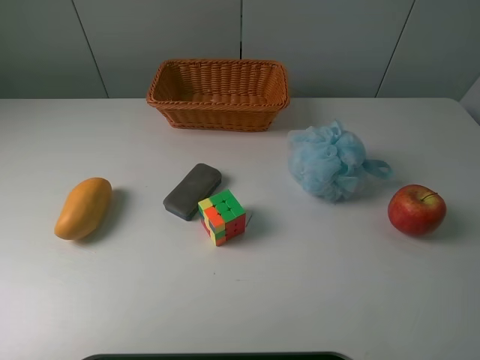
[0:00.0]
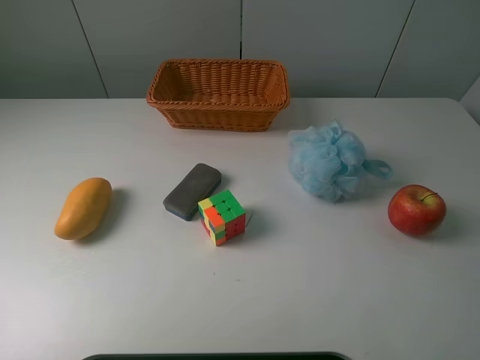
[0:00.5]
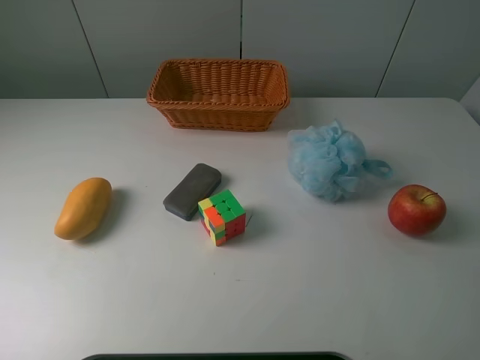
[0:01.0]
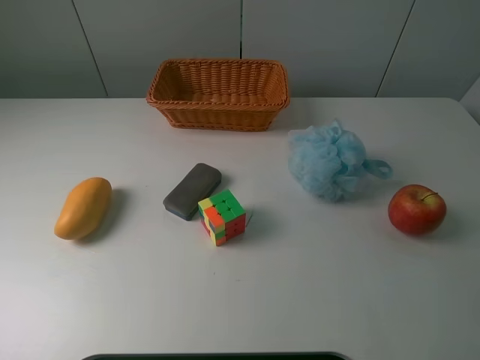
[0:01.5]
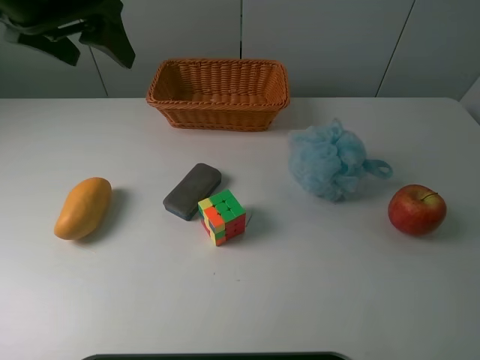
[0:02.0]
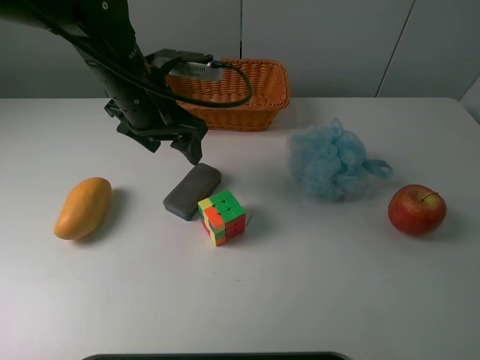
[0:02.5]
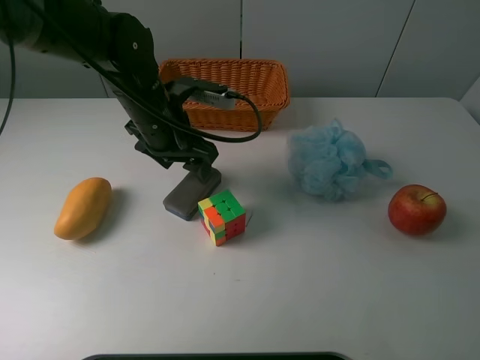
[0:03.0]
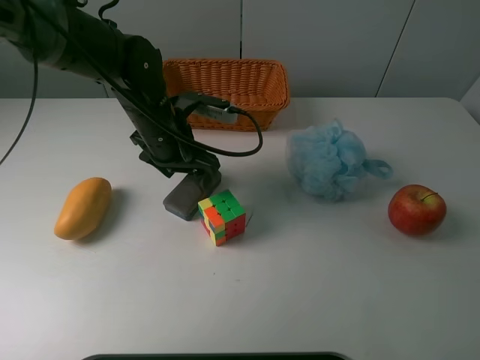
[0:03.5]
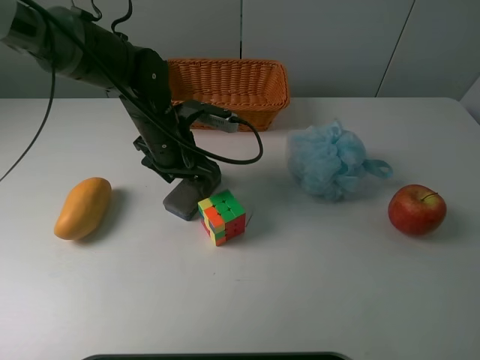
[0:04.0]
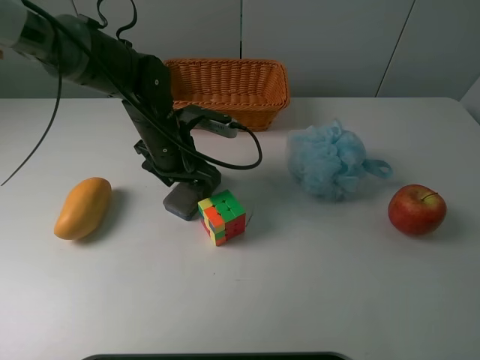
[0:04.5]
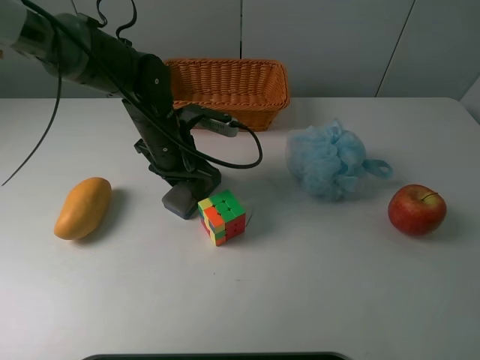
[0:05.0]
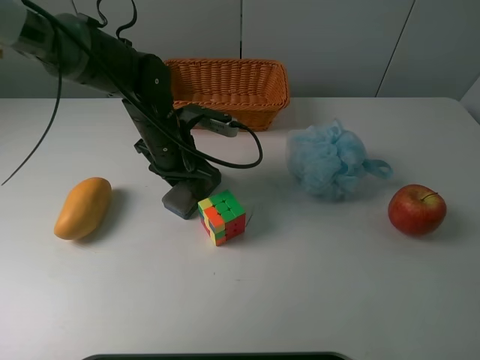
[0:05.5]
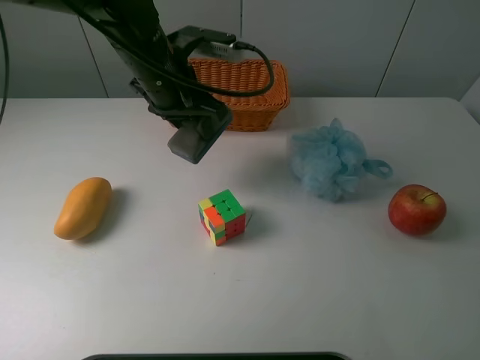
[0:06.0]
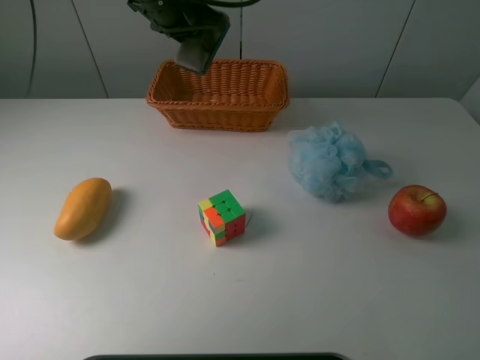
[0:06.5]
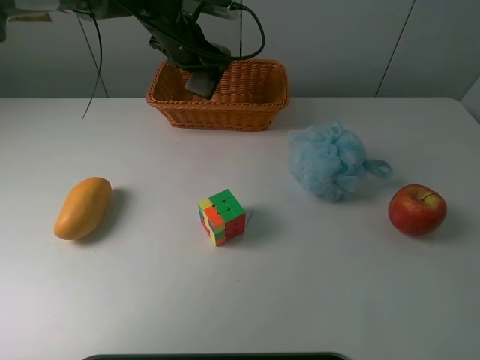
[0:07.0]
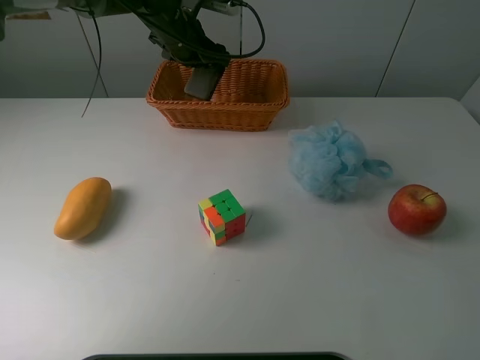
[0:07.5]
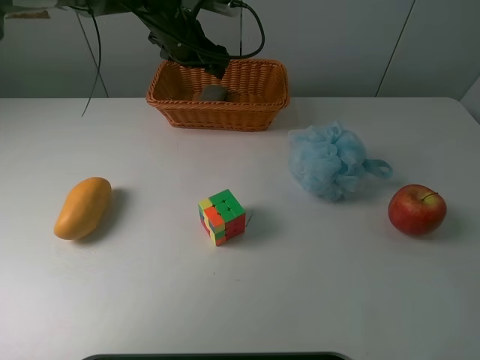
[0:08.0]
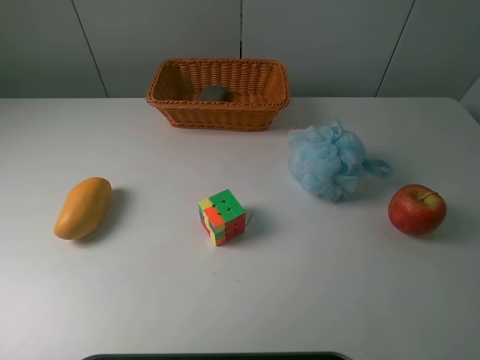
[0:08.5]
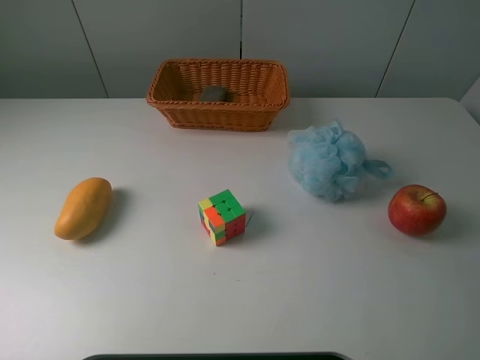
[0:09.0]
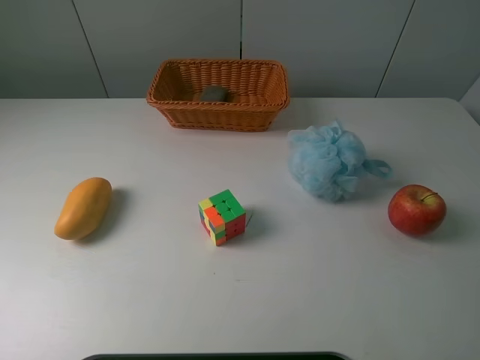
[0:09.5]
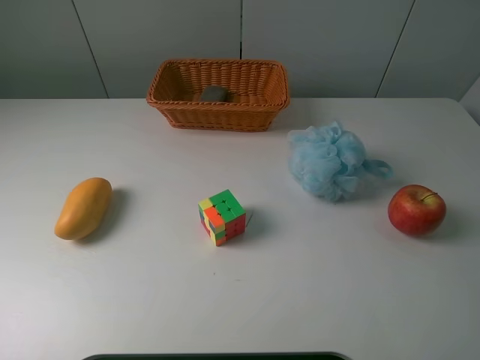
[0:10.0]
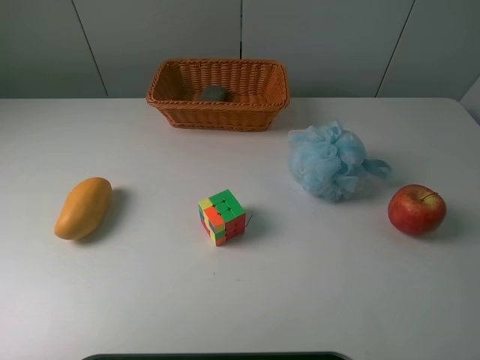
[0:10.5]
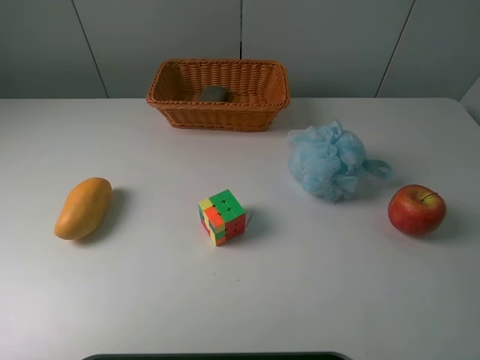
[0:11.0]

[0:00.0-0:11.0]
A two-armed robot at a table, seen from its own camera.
Task of the whole recording: use a picker to grab the item closest to the cube and place it in the basket.
Step, 0:00.0 to 0:04.5: Grasp the blackboard erasure with the left gripper.
Step, 0:05.0 to 0:07.5: Place the blackboard erasure into the basket with the left gripper.
0:00.0 to 0:02.0: The left gripper heads forward and to the right, covering some 35 cm.
0:02.0 to 0:03.5: The left gripper moves downward and to the right, some 20 cm.
0:03.5 to 0:05.5: The left gripper closes.
0:05.5 to 0:07.5: The left gripper heads forward and upward, covering some 20 cm, and opens.
0:07.5 to 0:09.0: The left gripper shifts about 50 cm upward, backward and to the left.

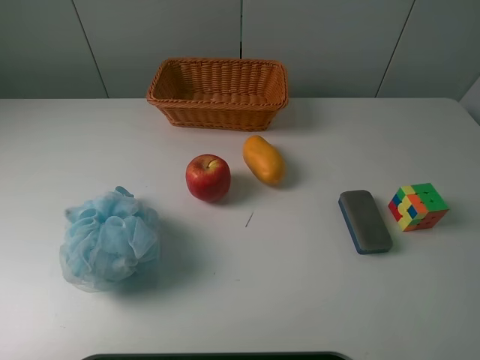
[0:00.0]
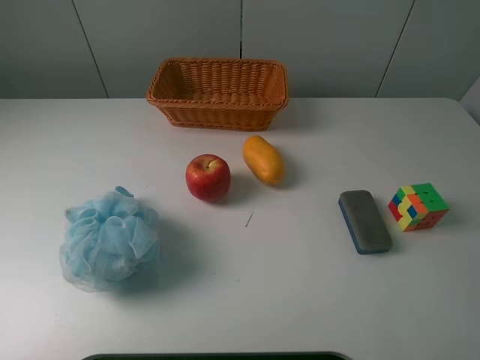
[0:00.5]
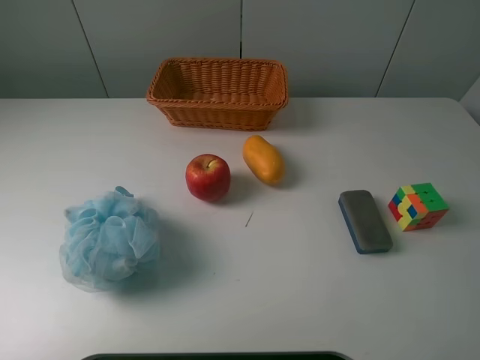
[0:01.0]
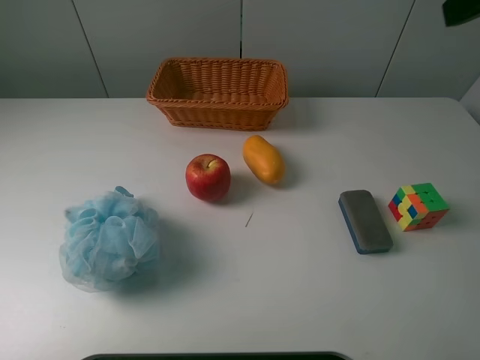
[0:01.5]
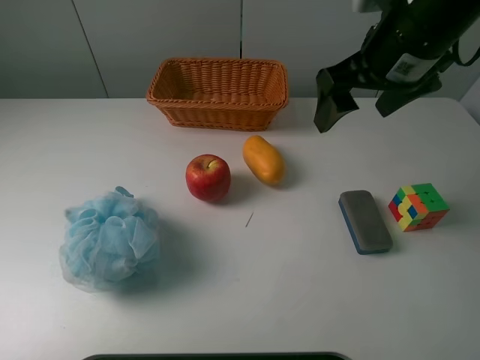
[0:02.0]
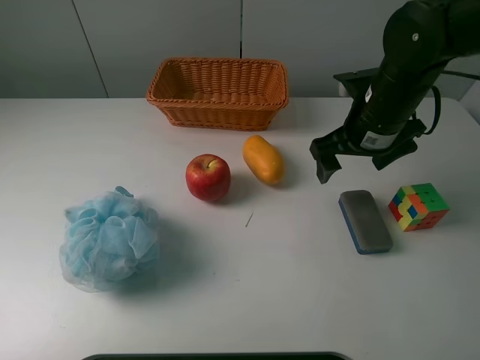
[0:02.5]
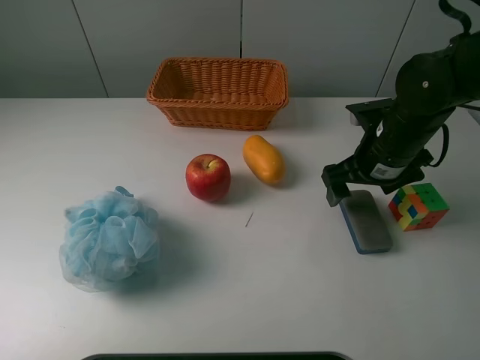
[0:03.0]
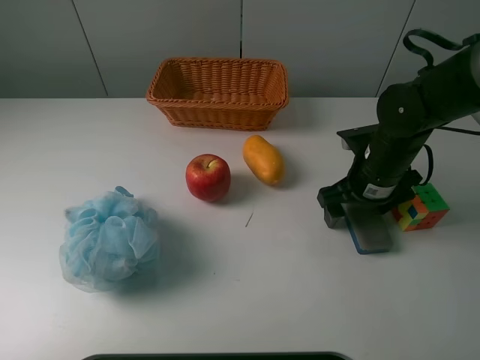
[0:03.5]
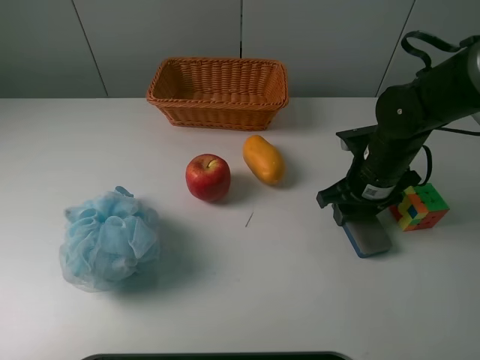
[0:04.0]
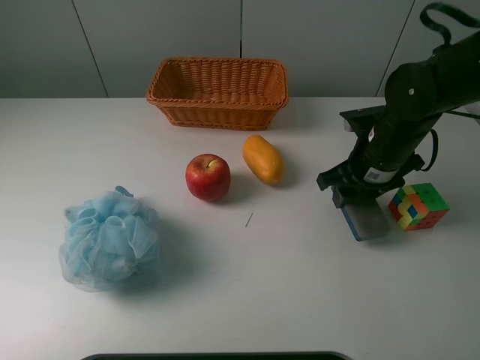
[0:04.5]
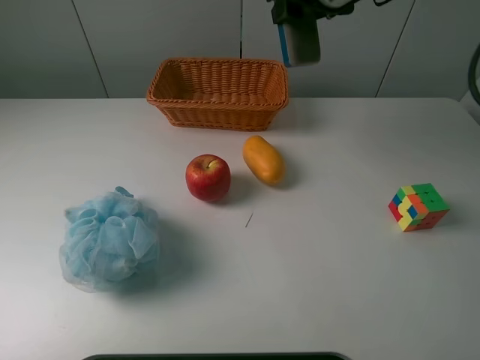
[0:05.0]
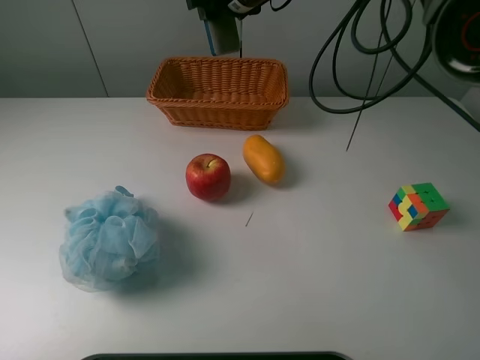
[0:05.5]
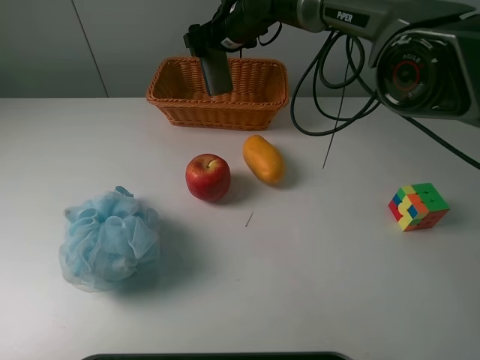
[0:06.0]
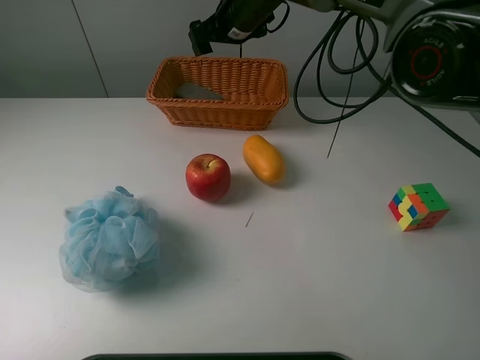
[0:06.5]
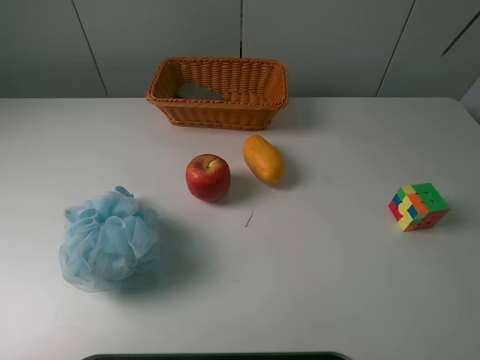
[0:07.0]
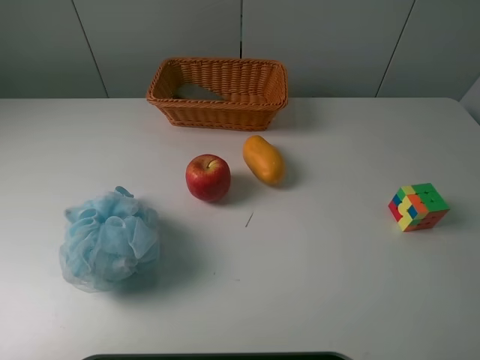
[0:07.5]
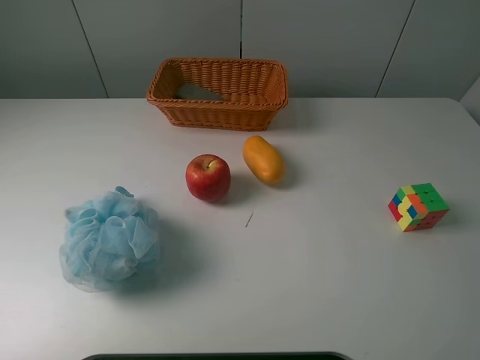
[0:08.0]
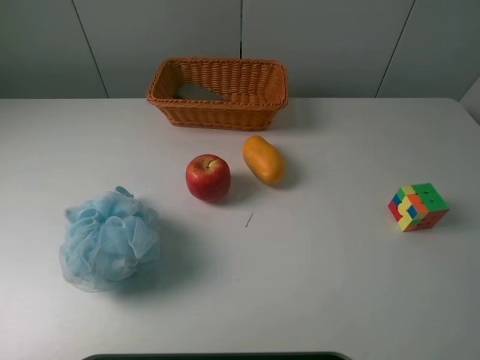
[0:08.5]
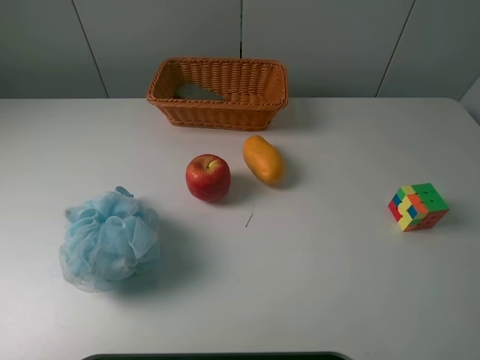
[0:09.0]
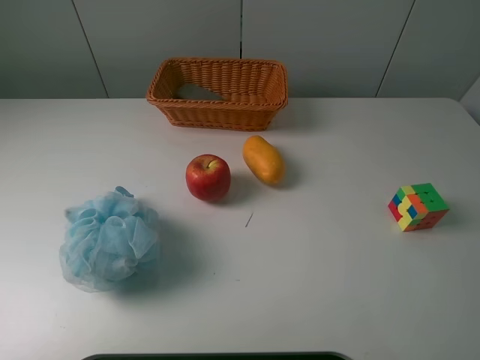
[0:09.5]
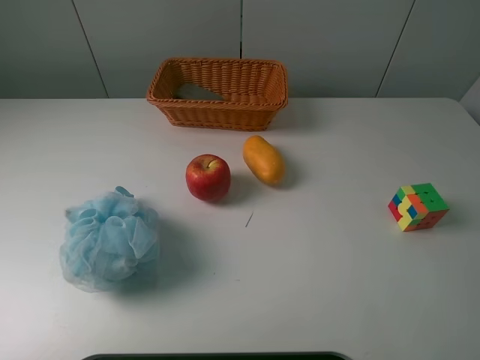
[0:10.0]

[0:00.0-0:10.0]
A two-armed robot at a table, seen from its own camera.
Task of the whole recording: use a picker to grab the item closest to the cube and place it in the basket.
Step, 0:00.0 to 0:04.0: Grasp the blackboard erasure with the right gripper.
Step, 0:04.5 to 0:06.5: Place the blackboard erasure into the basket with the right gripper.
0:00.0 to 0:02.0: The right gripper is displaced forward and to the left by approximately 30 cm.
0:02.0 to 0:04.0: The right gripper heads downward, covering approximately 20 cm, and closes its fingers.
0:04.0 to 0:06.0: The right gripper heads forward and to the left, covering approximately 30 cm, and opens.
0:06.0 to 0:08.0: The right gripper heads backward, upward and to the right, covering approximately 60 cm.
